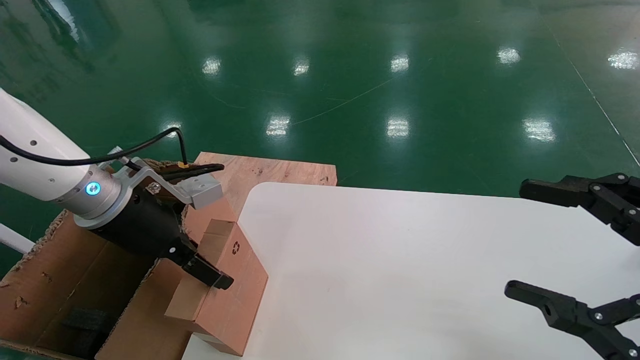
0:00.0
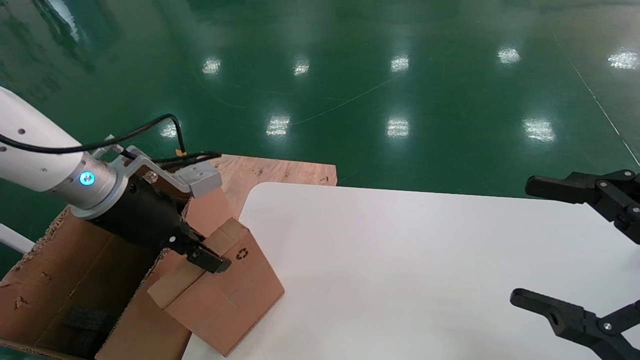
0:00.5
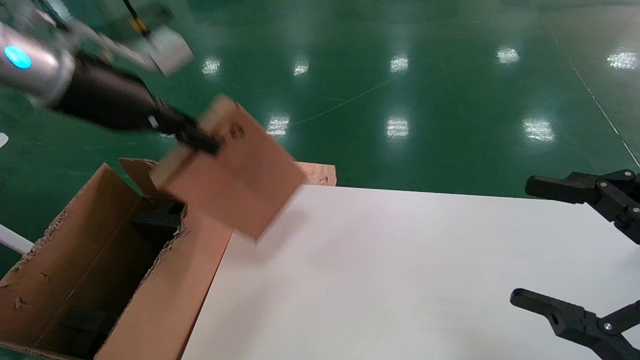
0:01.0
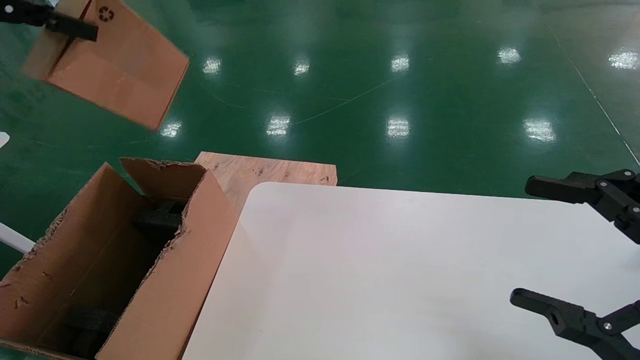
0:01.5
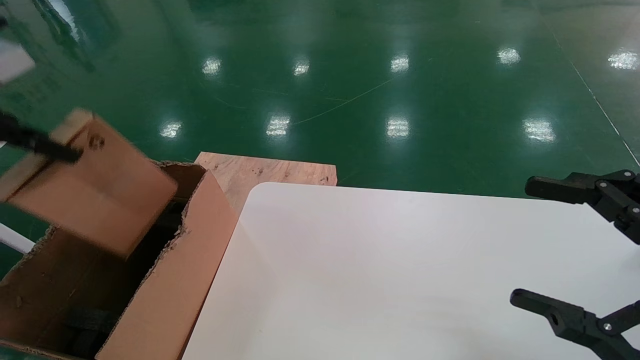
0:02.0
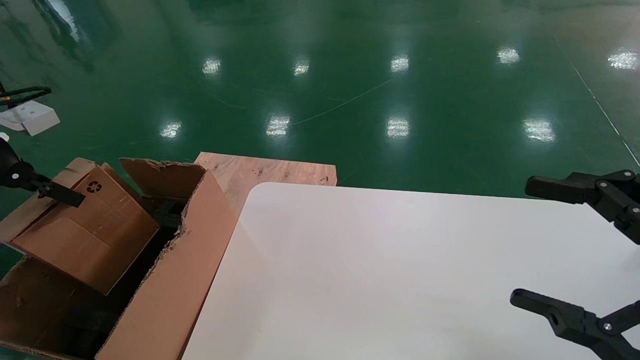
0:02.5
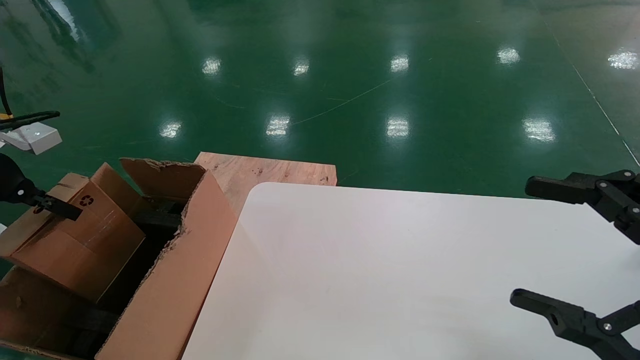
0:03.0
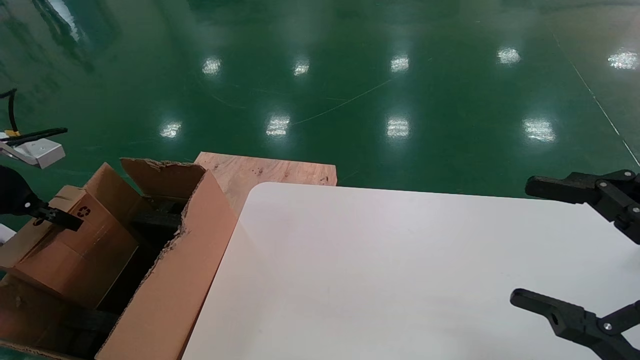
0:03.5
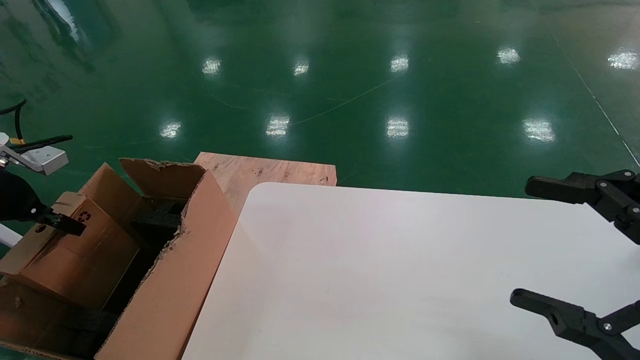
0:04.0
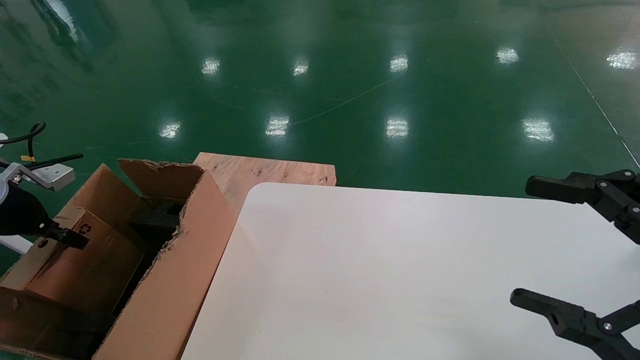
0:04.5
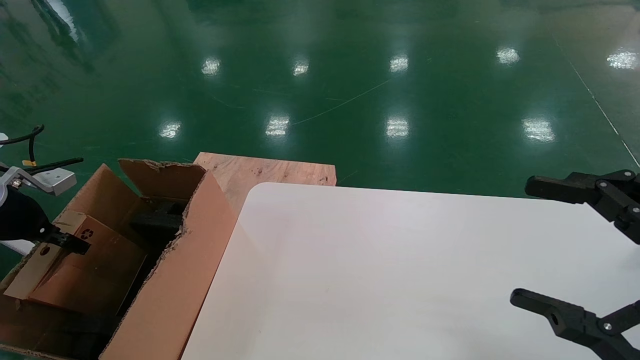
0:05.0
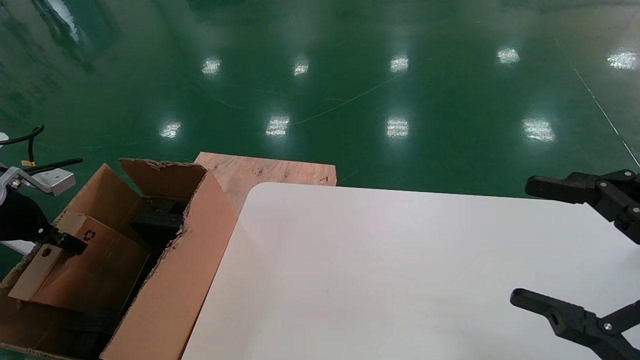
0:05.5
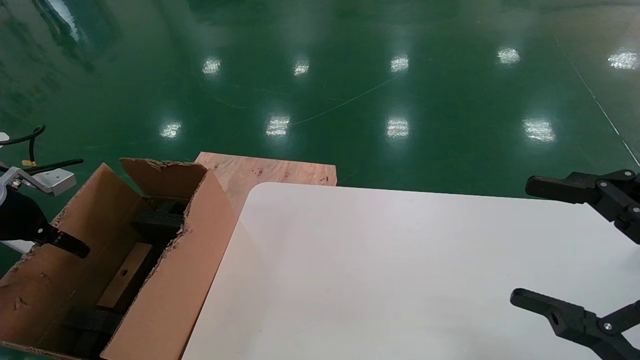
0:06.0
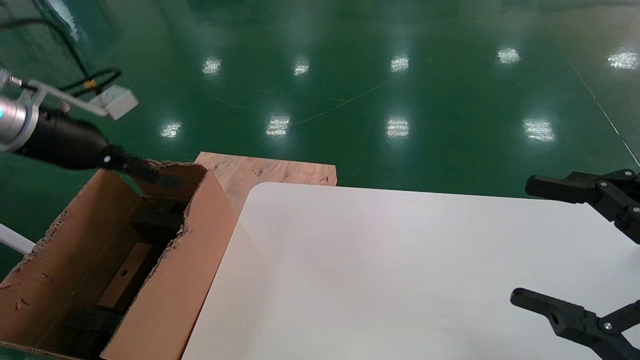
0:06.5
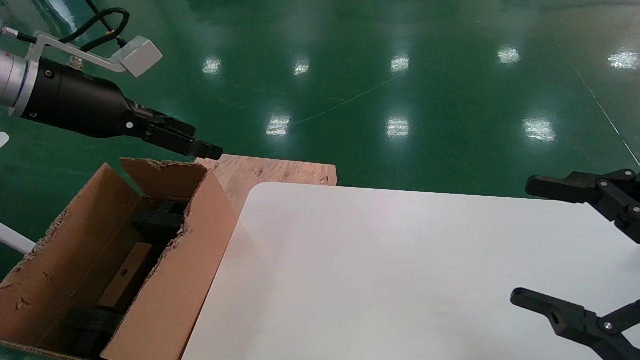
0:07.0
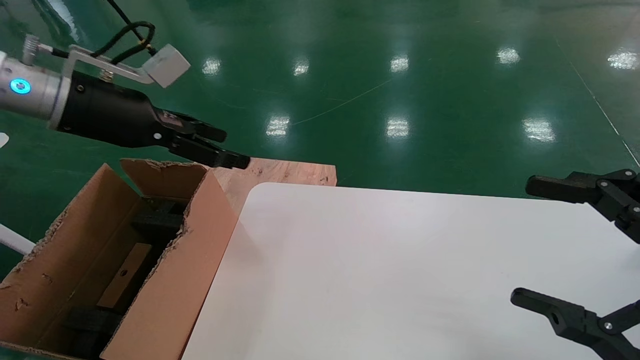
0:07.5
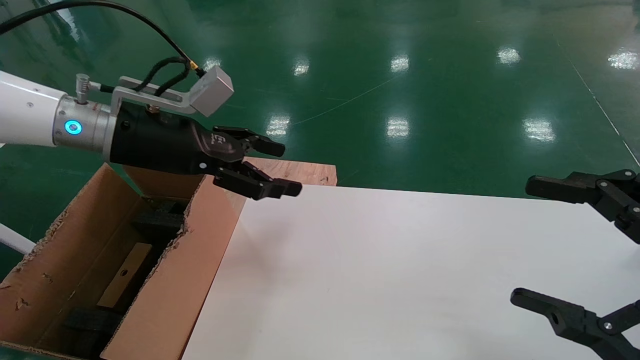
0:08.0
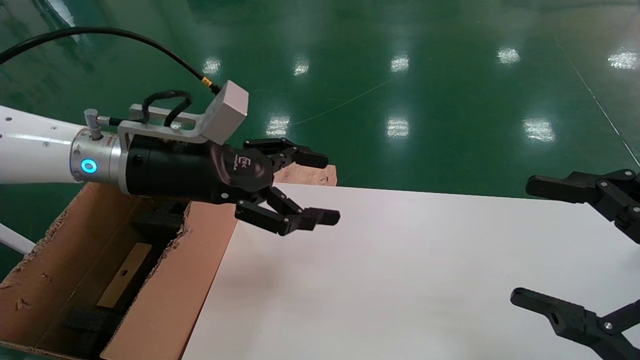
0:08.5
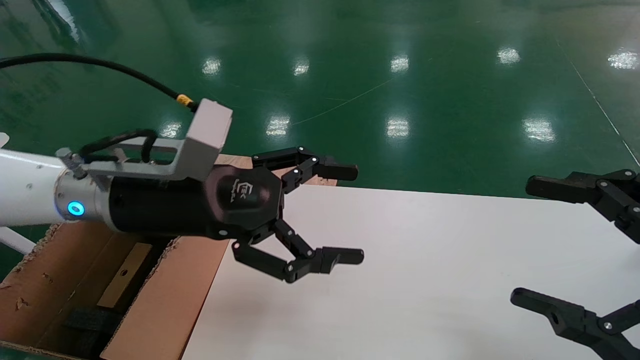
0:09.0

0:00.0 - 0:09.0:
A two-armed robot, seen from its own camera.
Task of the whole recording: place the small box on the table into the large box on the left.
Step, 0:01.0 - 0:06.0: Place the mouse and the power cord paper box into the container.
0:00.0 - 0:02.0: The left gripper heads to the left and upward, covering some 25 cm, and closes up.
0:02.0 - 0:04.5: The left gripper moves downward, some 15 cm.
0:04.5 - 0:07.0: The left gripper heads to the right and upward, covering some 25 cm, and opens its fingers.
0:07.0 - 0:09.0: The left gripper moves to the right and downward, some 20 cm.
